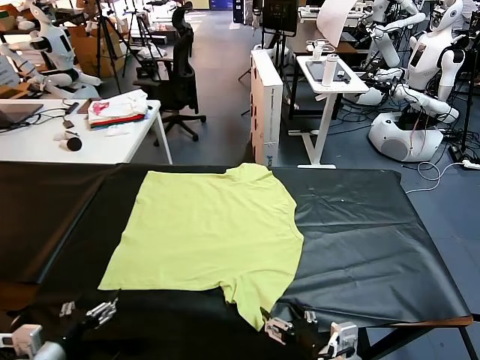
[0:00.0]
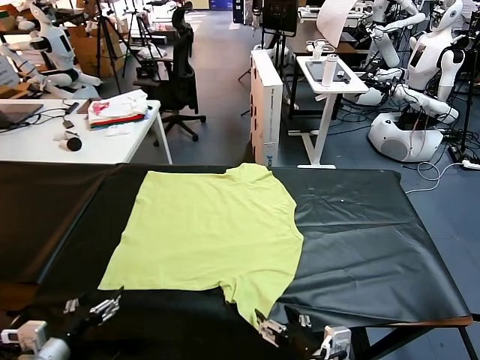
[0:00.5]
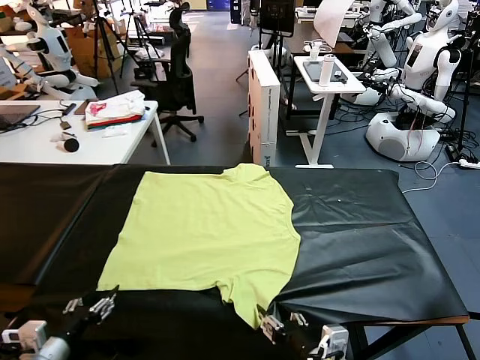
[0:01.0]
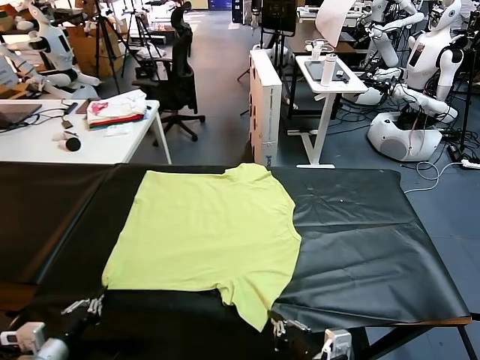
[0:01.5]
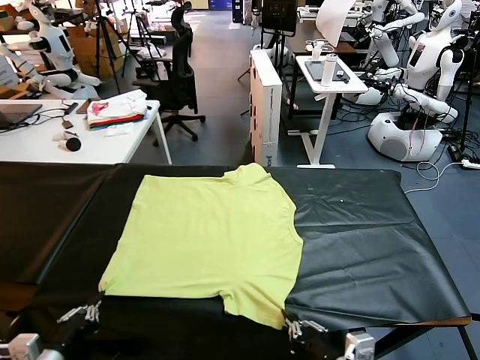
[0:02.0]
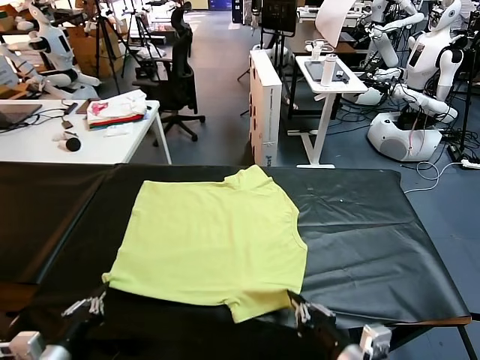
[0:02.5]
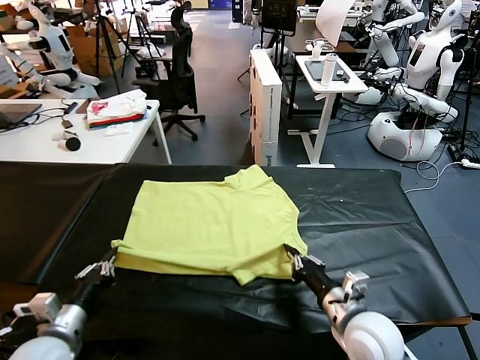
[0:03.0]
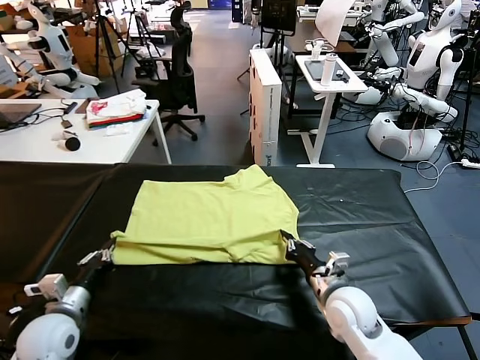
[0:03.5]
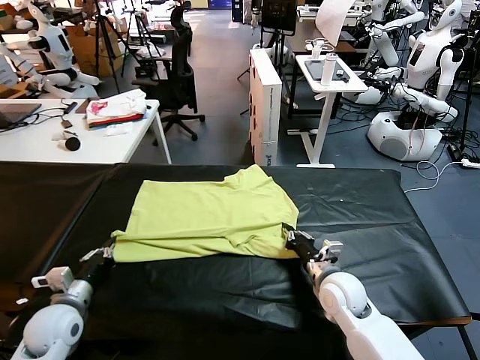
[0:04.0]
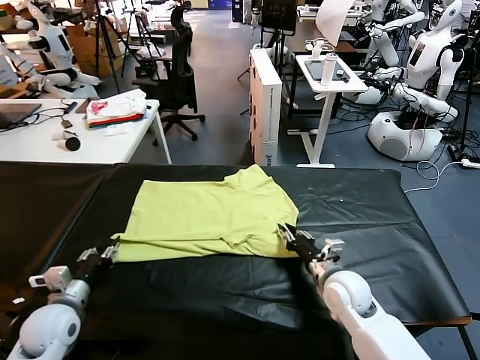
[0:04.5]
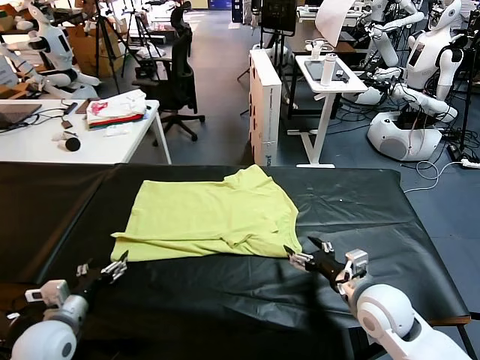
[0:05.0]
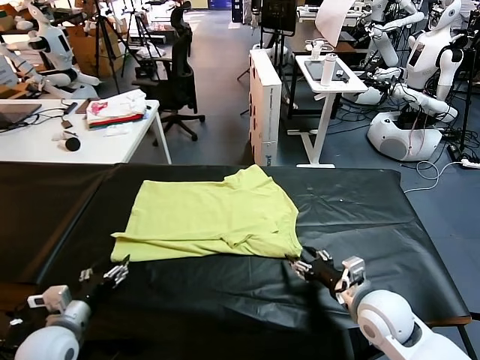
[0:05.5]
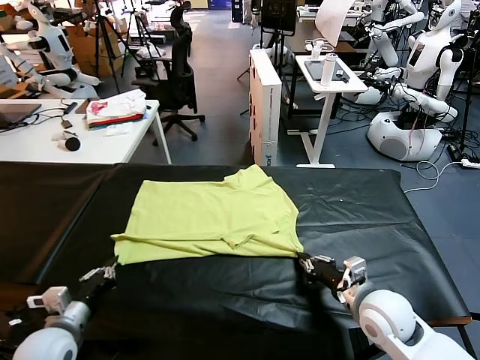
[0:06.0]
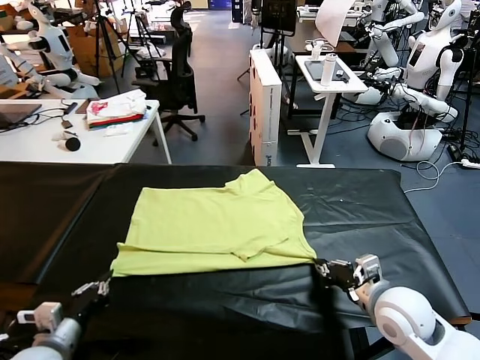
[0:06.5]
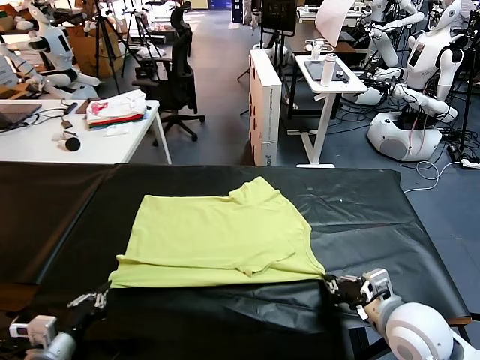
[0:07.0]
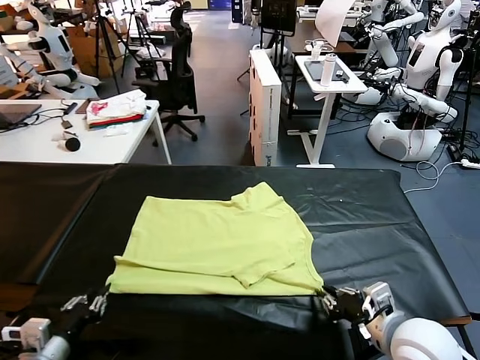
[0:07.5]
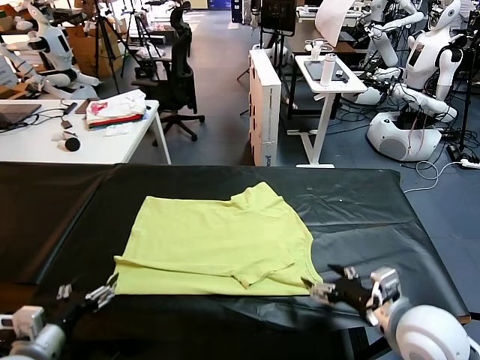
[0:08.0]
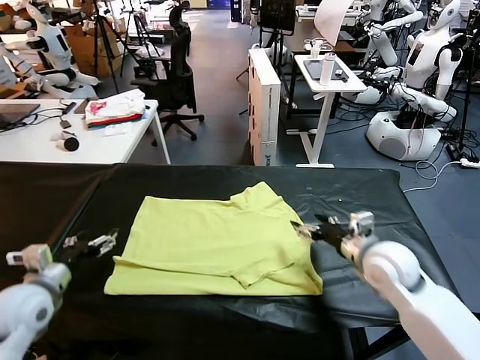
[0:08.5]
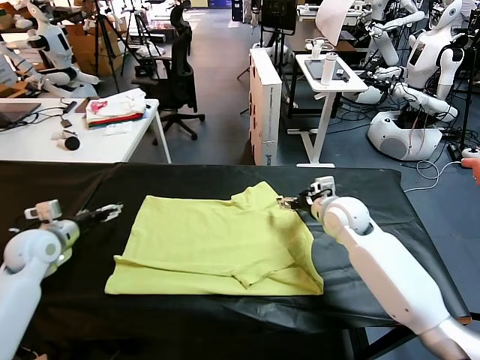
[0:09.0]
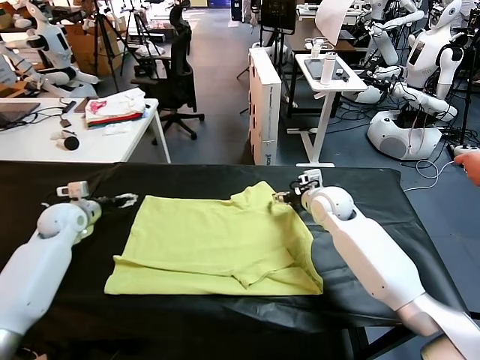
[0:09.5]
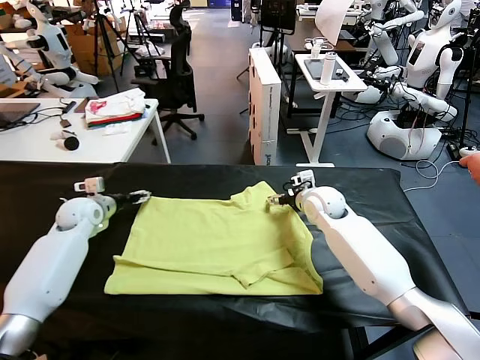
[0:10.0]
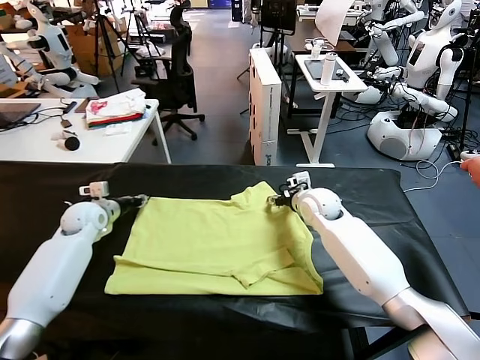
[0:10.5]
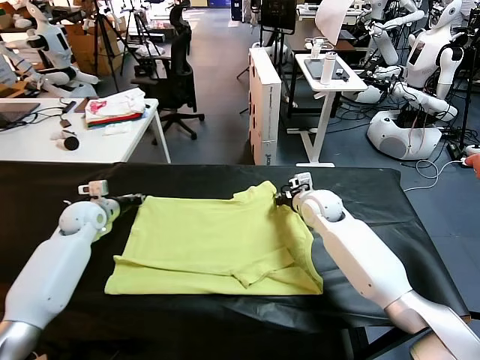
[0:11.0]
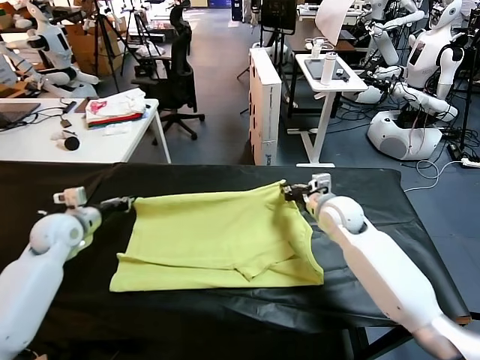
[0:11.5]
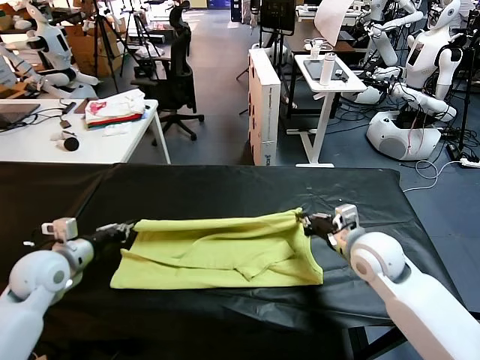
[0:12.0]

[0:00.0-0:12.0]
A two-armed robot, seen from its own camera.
Task of the whole recording: fold and organize the clothes.
Step, 0:00.0 to 0:01.5: use both grippers simultaneously to clamp the lower edge of the clothing fabric.
Step, 0:02.0 to 0:04.5: use both grippers to drag the lower edge of the fabric forward and fold it over the upper edge.
Step, 0:05.0 to 0:07.5: Drag the clothes downward with both gripper.
Step, 0:08.0 to 0:11.0: use both grippers simultaneously to clamp the upper edge of the clothing fabric.
0:02.0 to 0:04.0: The right gripper heads forward and downward, covering approximately 25 cm, while the left gripper is displaced forward by approximately 15 cm.
0:04.0 to 0:06.0: The left gripper travels backward by about 5 cm, and opens, then closes again; the right gripper goes approximately 10 cm to the right, backward and upward, and opens, then closes once more.
0:06.0 to 0:08.0: The grippers both shift upward by some 5 cm. The right gripper goes backward and returns, approximately 5 cm each way, and opens up, while the left gripper opens.
0:08.0 to 0:10.0: The left gripper travels forward by approximately 35 cm. The right gripper travels forward and to the left by roughly 30 cm.
0:10.0 to 0:12.0: Both grippers travel together backward, roughly 20 cm. The left gripper closes its fingers, while the right gripper closes its fingers.

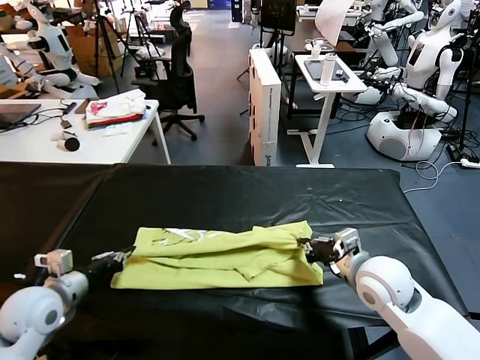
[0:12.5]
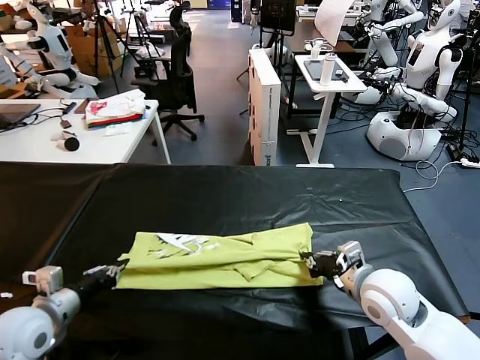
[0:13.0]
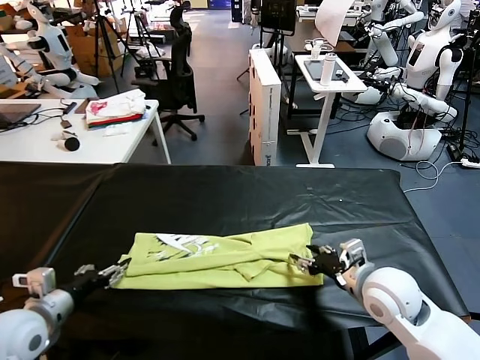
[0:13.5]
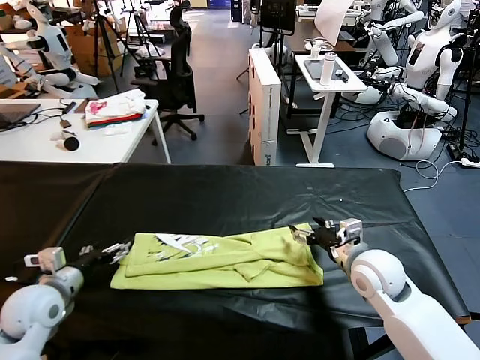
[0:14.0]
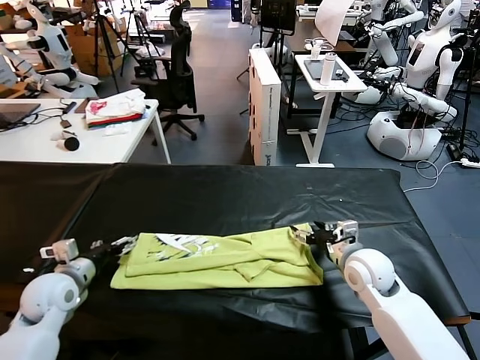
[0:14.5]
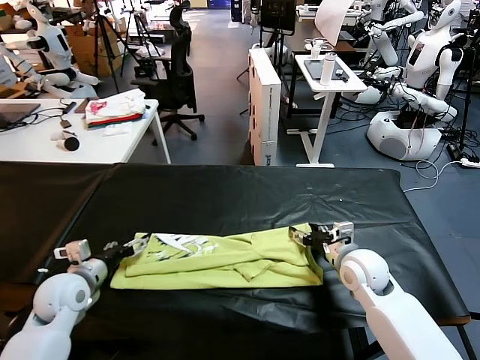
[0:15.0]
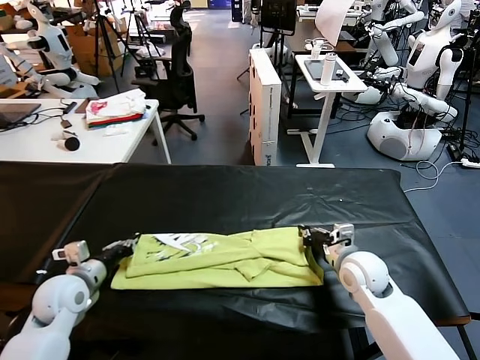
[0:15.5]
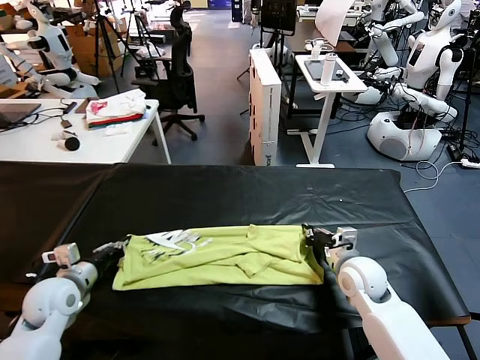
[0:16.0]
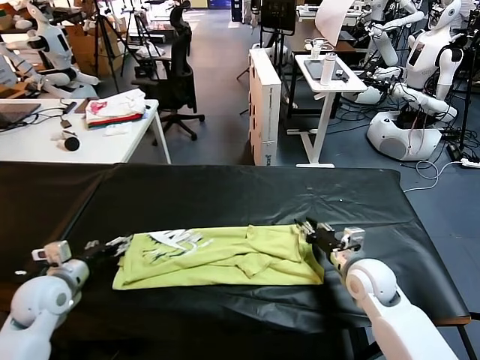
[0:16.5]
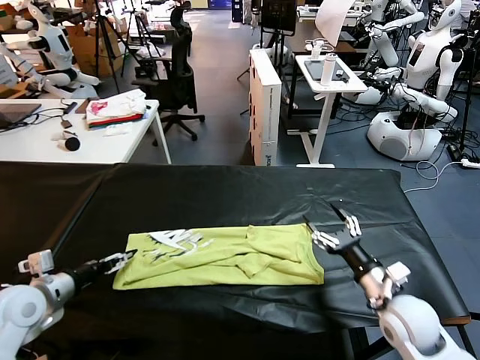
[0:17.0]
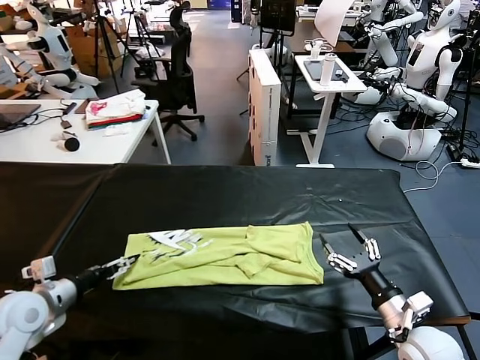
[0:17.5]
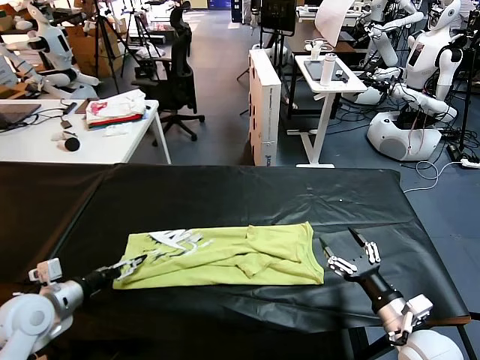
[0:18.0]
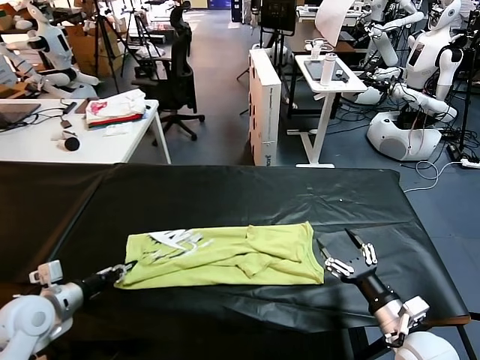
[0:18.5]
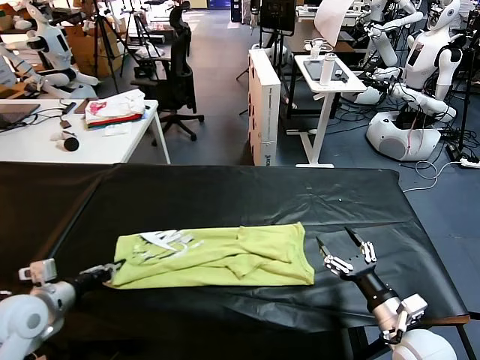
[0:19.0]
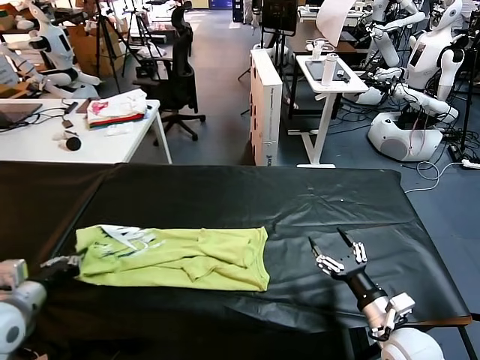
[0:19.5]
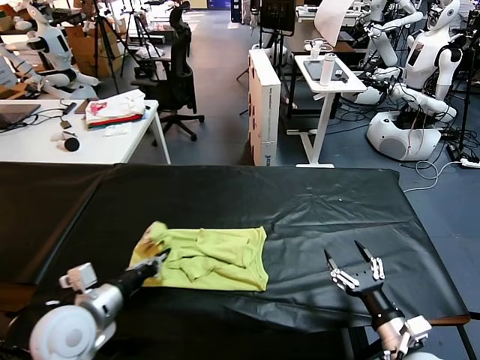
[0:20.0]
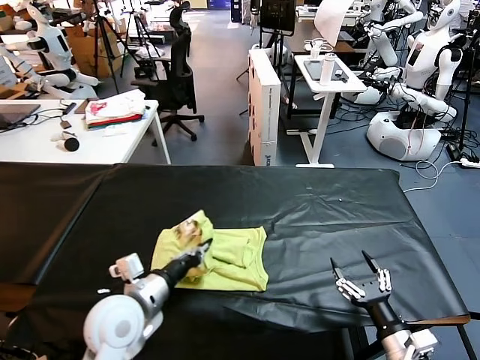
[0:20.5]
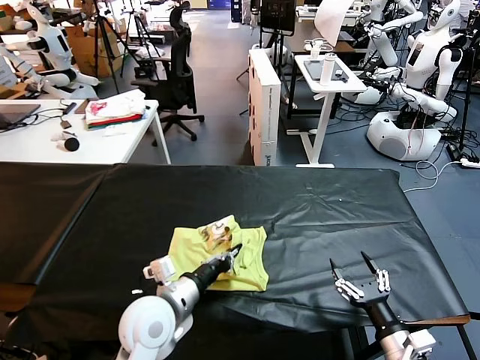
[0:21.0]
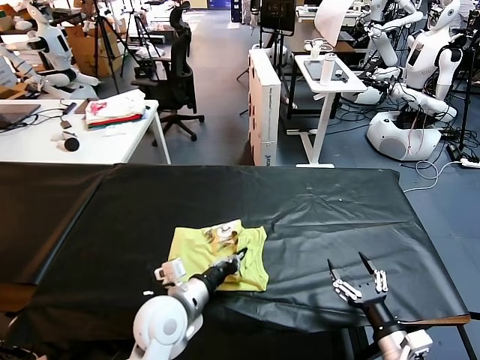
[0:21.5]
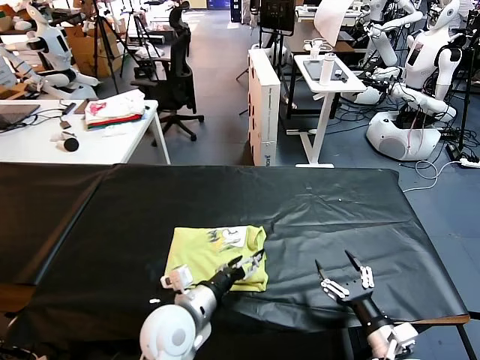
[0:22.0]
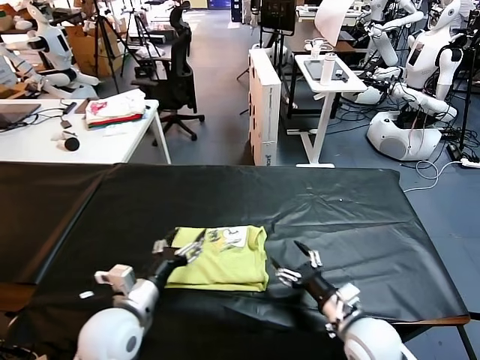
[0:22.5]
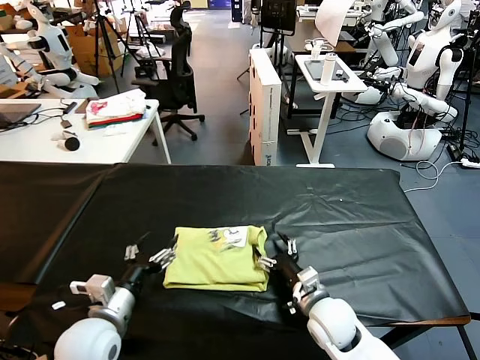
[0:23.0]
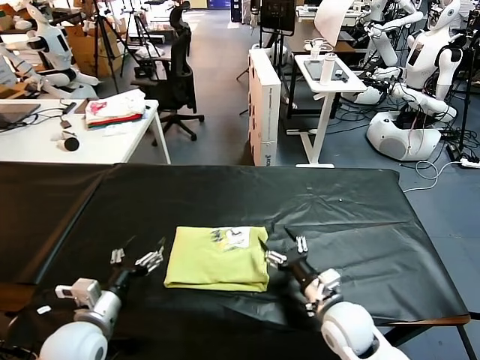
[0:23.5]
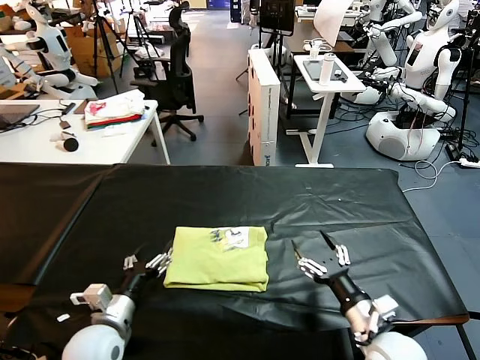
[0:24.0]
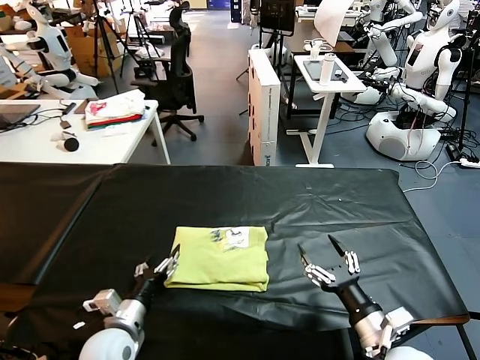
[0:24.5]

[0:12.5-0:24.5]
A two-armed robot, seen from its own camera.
Task of the whole recording: fold and organize the clothes.
Step, 0:14.0 to 0:18.5: use the left gripper to clamp the left edge of the fabric.
Step, 0:19.0 to 0:21.5: use the left gripper to drag the left edge of the fabric to the left and folds it over the right edge.
0:12.5 to 0:14.5: The left gripper shifts roughly 5 cm forward, and opens its fingers, while the right gripper shifts some 10 cm forward and downward, and opens.
0:14.5 to 0:16.5: The right gripper closes and opens again. The left gripper closes and opens again.
0:16.5 to 0:18.5: The right gripper moves backward, some 15 cm. Meanwhile the left gripper closes its fingers.
0:18.5 to 0:20.5: The right gripper shifts about 5 cm backward. The left gripper travels to the right by roughly 20 cm.
0:20.5 to 0:22.5: The right gripper travels forward and to the left by approximately 10 cm, while the left gripper moves roughly 10 cm to the right and comes back, and opens.
0:22.5 to 0:24.5: The left gripper travels downward by roughly 10 cm, while the right gripper moves backward, approximately 5 cm.

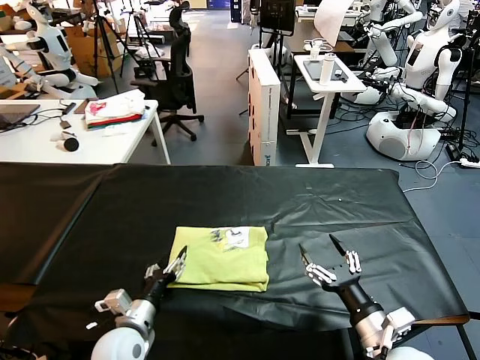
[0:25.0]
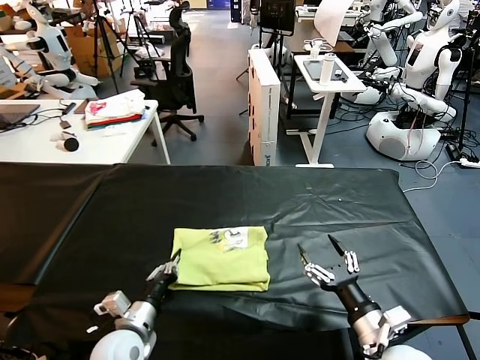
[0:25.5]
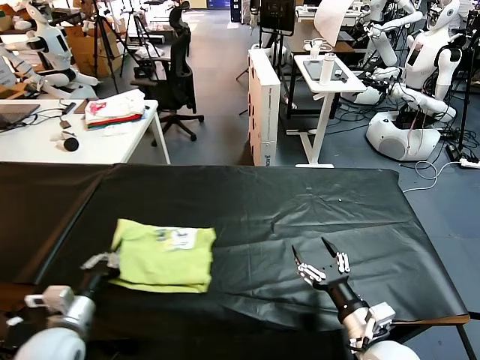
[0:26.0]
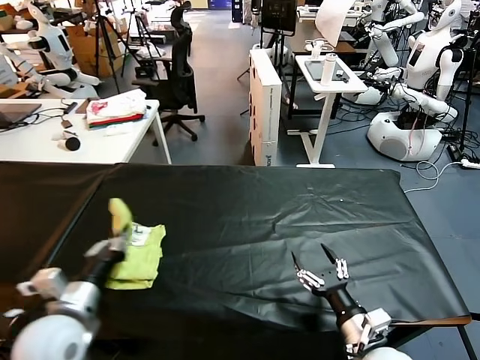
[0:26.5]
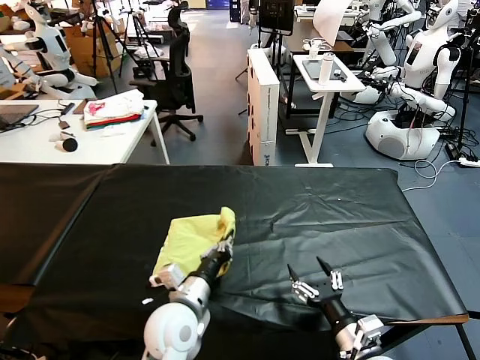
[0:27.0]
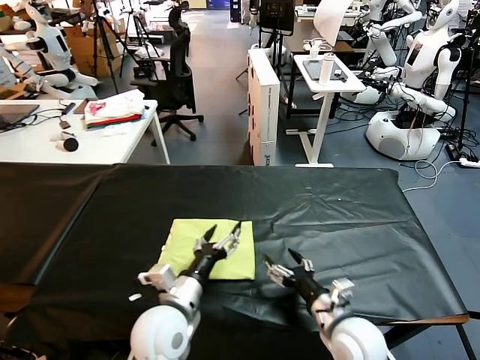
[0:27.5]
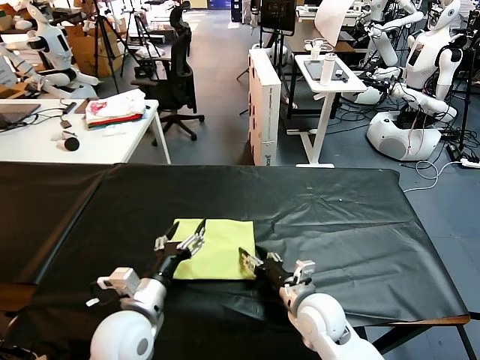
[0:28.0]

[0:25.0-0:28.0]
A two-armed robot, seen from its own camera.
Task of the whole recording: fold and organize the clothes.
Step, 0:25.0 to 0:27.0: Flip the folded clothes over with left gripper.
0:25.0 to 0:26.5: The left gripper moves upward and to the left, approximately 15 cm, and closes up.
0:26.5 to 0:28.0: The right gripper is displaced forward and to the left by roughly 15 cm. Meanwhile the left gripper heads to the right, covering approximately 10 cm, and opens.
